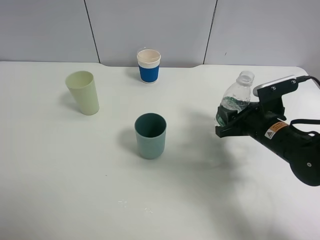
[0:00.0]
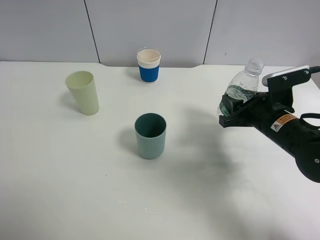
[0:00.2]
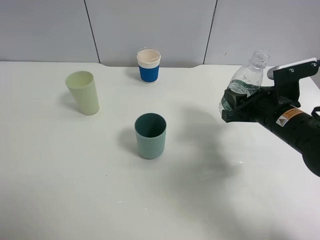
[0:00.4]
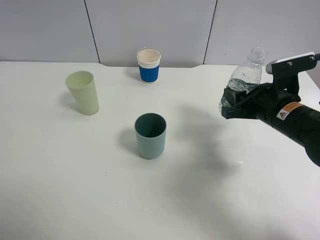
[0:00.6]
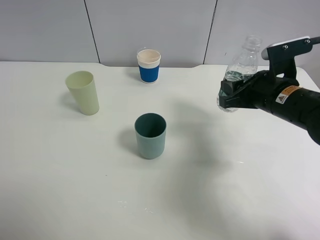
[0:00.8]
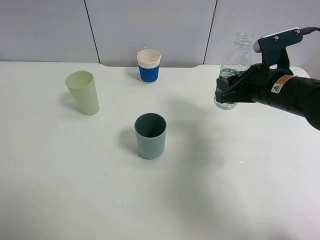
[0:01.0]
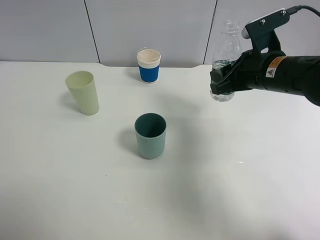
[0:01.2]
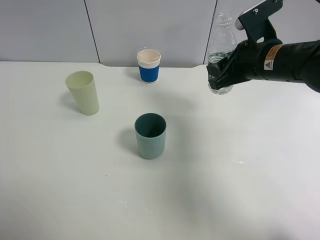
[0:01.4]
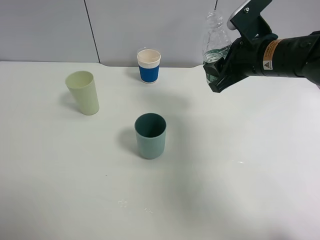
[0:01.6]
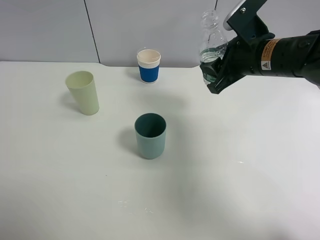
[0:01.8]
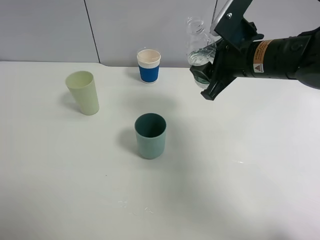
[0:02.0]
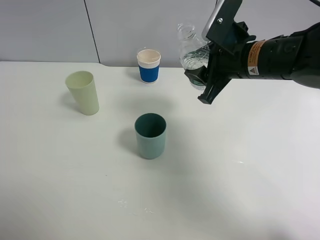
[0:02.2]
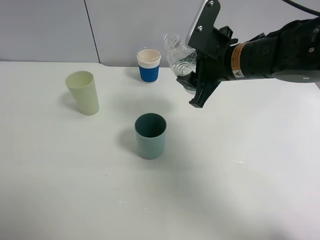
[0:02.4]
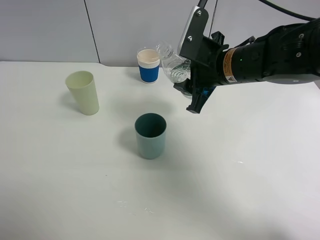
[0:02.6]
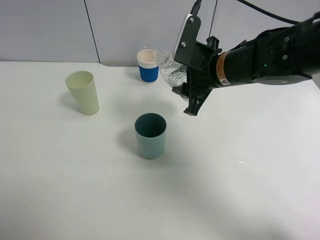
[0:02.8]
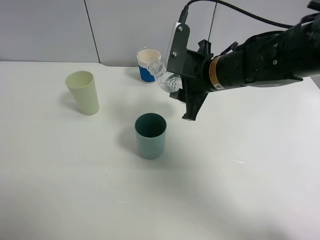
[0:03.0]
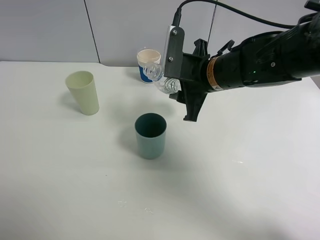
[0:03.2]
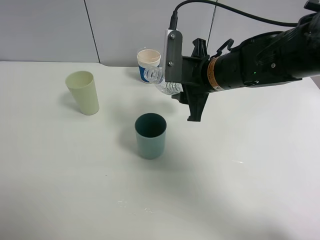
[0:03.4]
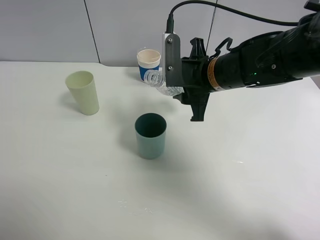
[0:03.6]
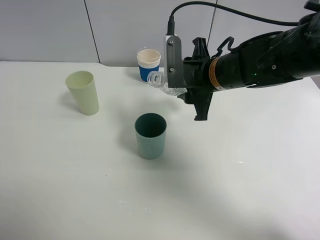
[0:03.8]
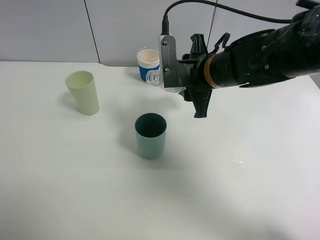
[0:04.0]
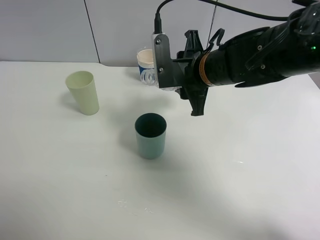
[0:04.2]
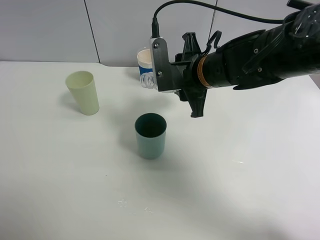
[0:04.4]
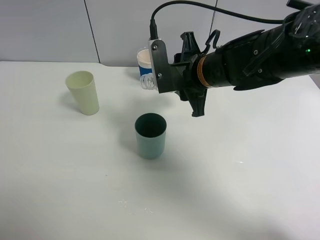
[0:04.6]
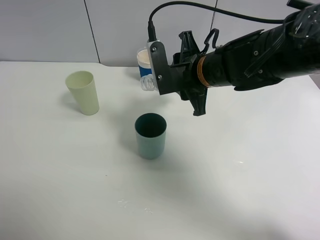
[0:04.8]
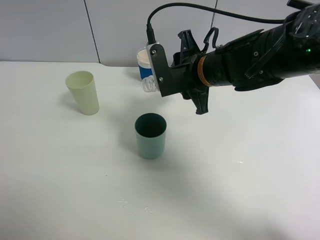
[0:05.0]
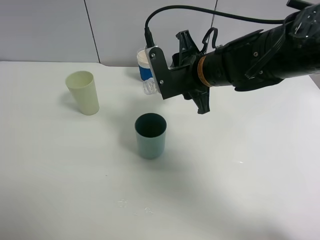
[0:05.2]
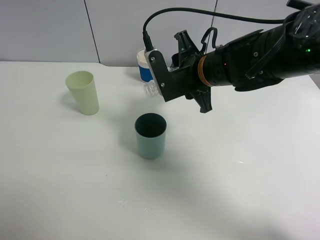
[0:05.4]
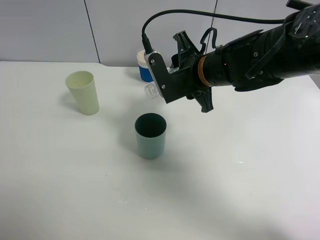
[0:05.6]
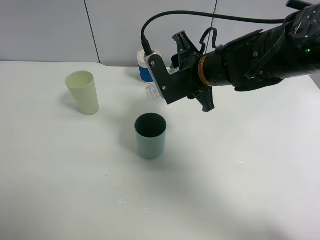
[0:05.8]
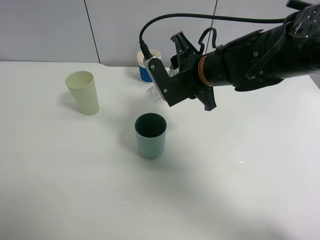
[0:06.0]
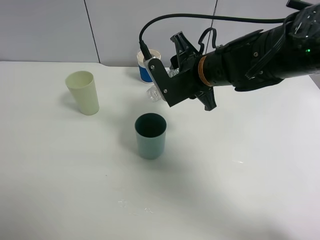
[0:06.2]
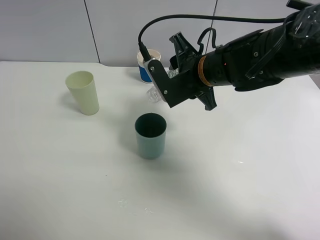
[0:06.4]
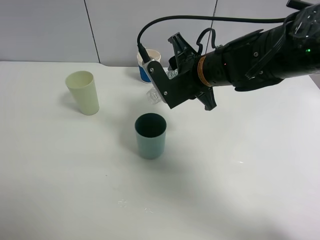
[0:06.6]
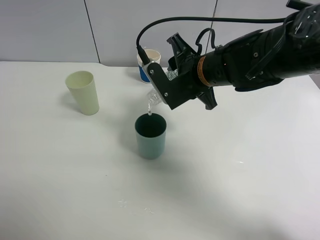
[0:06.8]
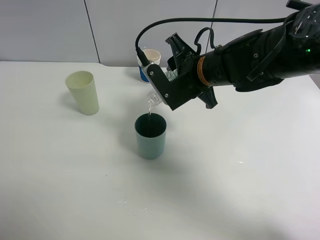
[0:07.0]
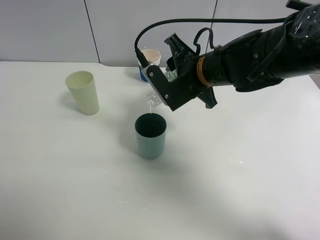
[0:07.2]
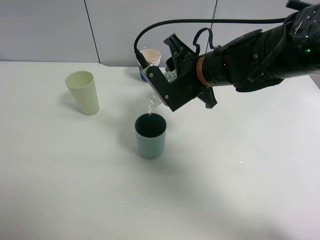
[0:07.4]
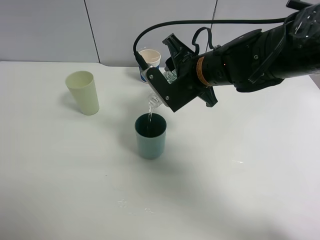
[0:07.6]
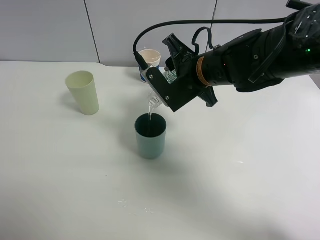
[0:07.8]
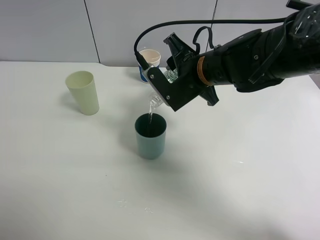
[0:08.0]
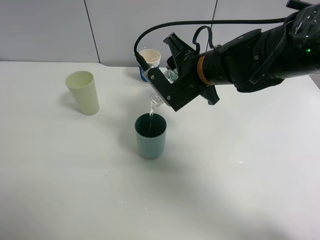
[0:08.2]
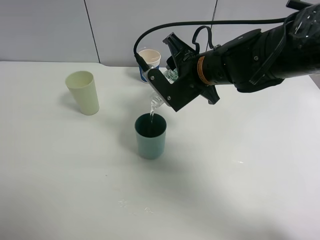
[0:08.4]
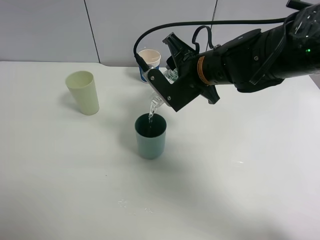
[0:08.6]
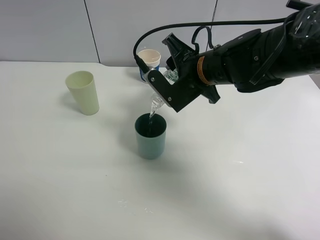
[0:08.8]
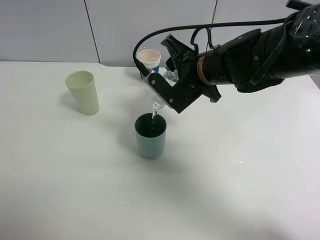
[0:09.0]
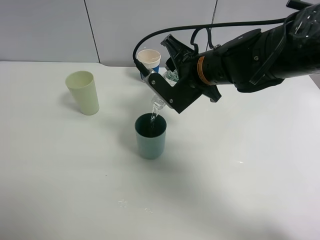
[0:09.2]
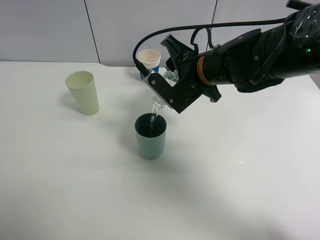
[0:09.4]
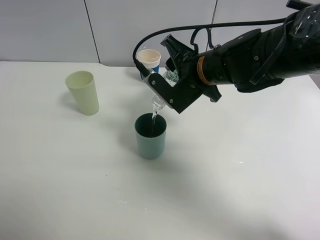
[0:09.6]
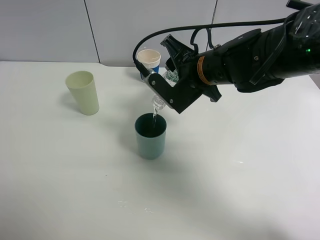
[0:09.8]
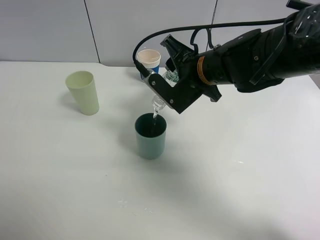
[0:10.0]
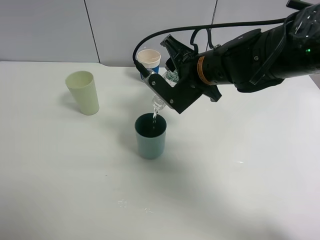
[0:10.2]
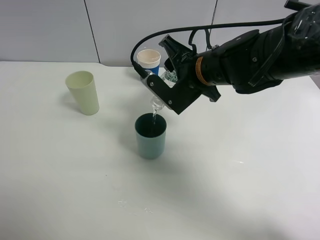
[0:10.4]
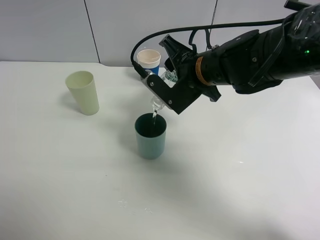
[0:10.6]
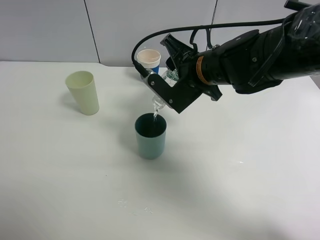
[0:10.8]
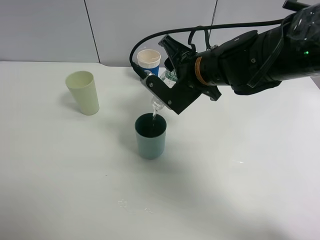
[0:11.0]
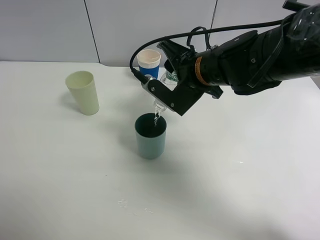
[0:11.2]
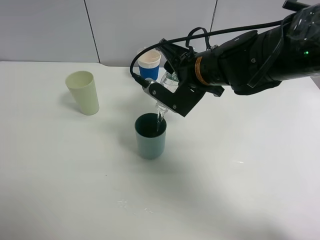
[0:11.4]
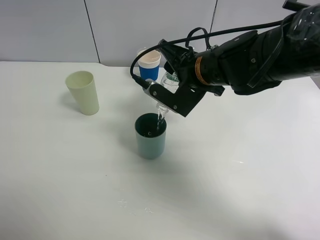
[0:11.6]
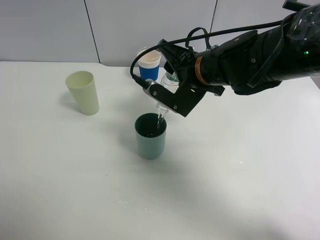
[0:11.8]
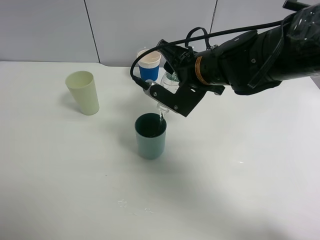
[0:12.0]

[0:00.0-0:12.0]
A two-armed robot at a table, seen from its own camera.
Task of the whole recording: use a clamp to hold the bottle of the drink, pour the beverage into a random cup, then clamp the cup containing the drink and pour the drink into another random cup.
0:00.0 to 0:01.6: The right gripper heads upward and forward, covering approximately 15 cm.
0:01.6 to 0:03.0: The right gripper is displaced to the left by some 10 cm.
0:06.0 to 0:09.0: The grippers move only a little.
0:09.0 to 0:10.4: Neither gripper changes place.
0:10.4 to 0:12.0: The grippers make only small movements.

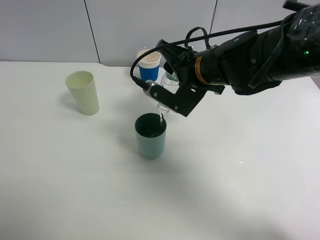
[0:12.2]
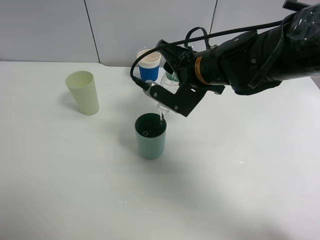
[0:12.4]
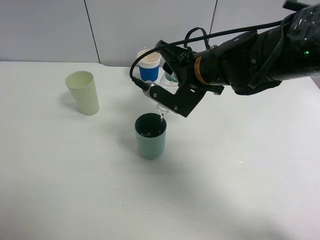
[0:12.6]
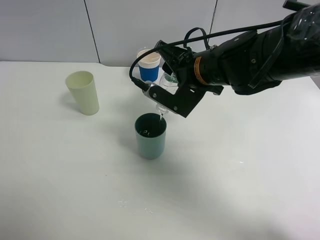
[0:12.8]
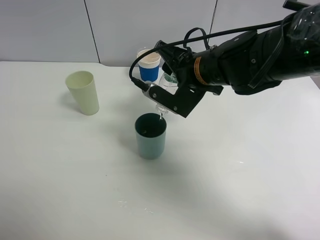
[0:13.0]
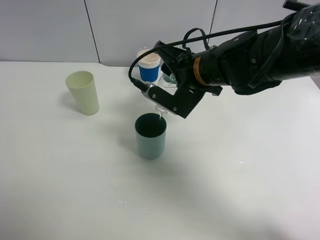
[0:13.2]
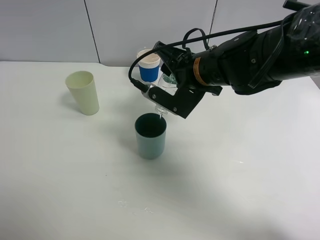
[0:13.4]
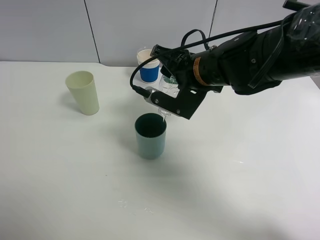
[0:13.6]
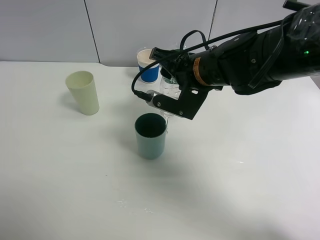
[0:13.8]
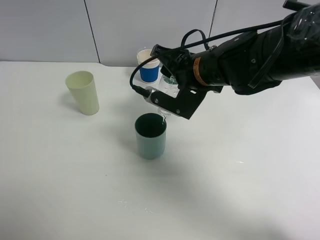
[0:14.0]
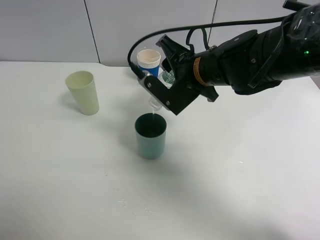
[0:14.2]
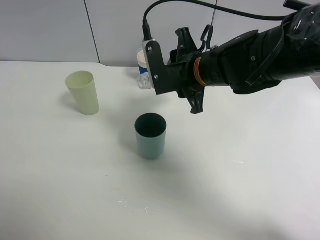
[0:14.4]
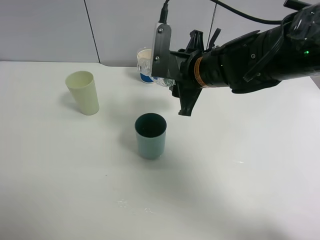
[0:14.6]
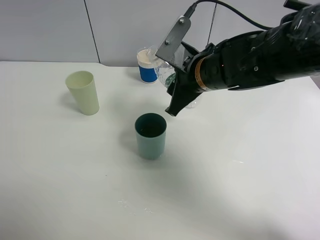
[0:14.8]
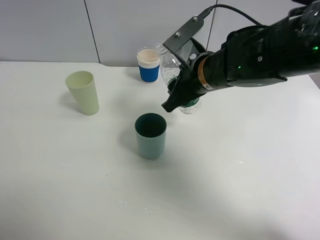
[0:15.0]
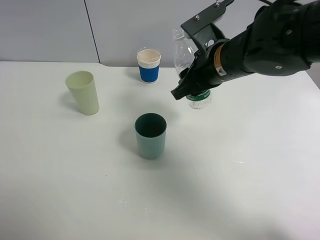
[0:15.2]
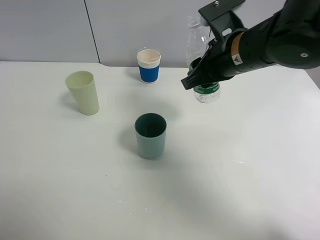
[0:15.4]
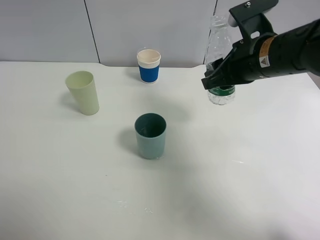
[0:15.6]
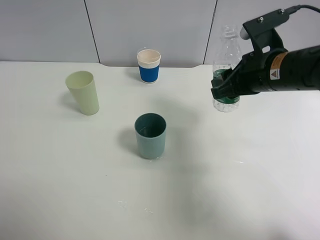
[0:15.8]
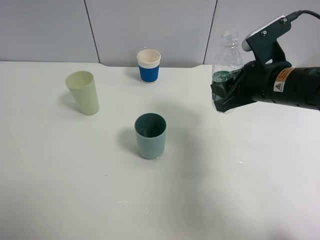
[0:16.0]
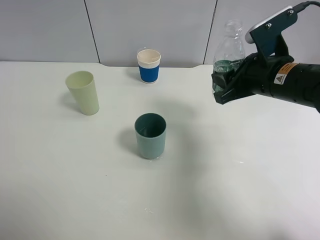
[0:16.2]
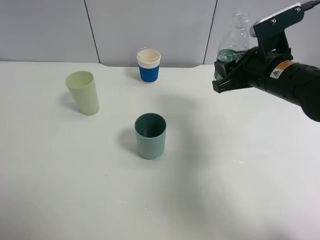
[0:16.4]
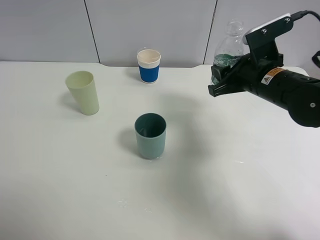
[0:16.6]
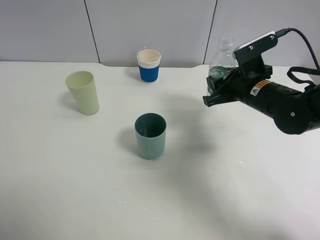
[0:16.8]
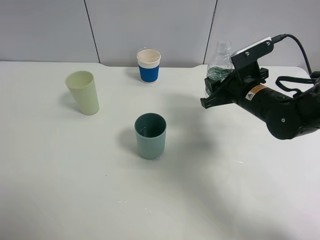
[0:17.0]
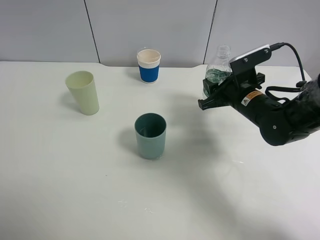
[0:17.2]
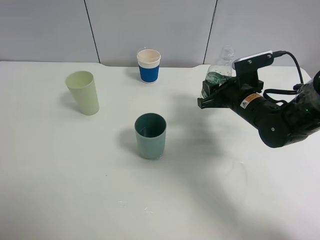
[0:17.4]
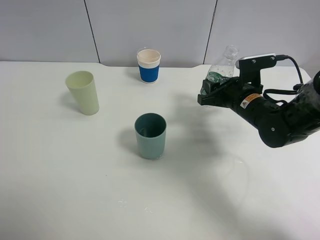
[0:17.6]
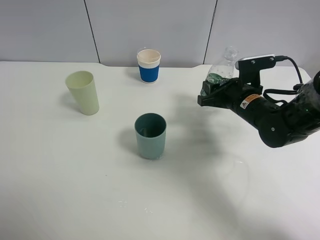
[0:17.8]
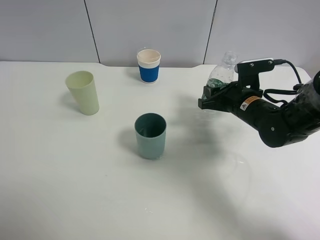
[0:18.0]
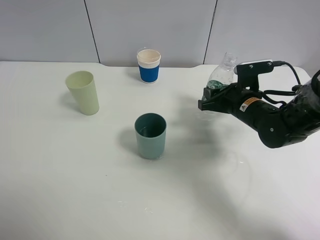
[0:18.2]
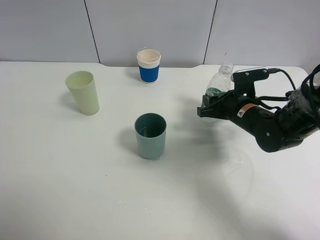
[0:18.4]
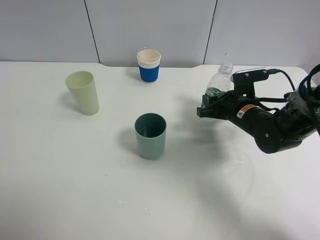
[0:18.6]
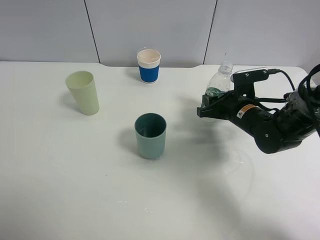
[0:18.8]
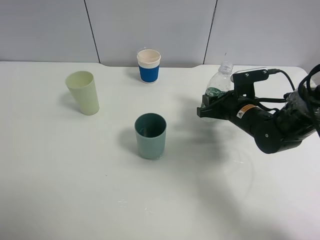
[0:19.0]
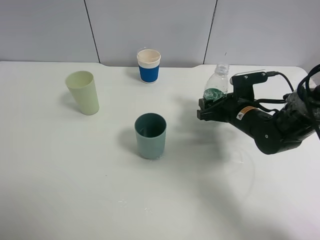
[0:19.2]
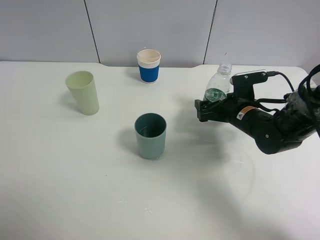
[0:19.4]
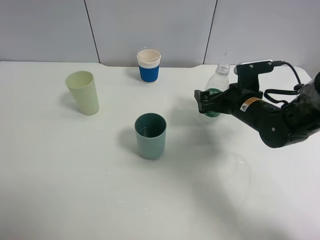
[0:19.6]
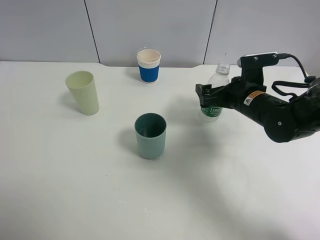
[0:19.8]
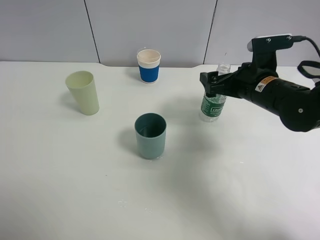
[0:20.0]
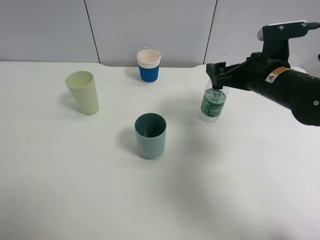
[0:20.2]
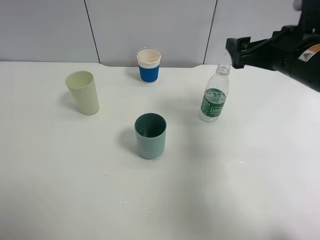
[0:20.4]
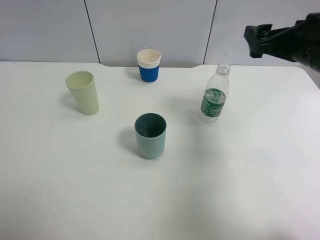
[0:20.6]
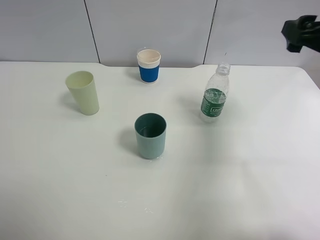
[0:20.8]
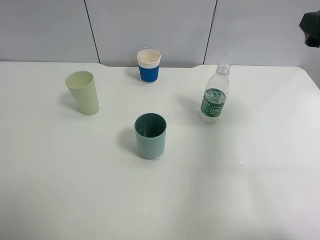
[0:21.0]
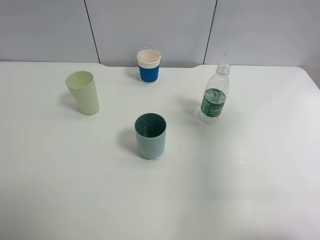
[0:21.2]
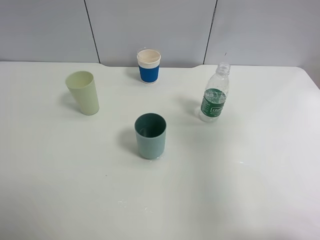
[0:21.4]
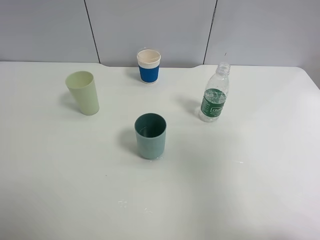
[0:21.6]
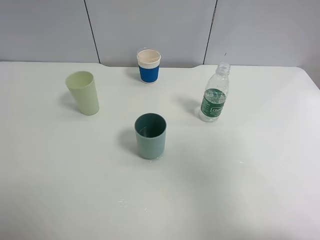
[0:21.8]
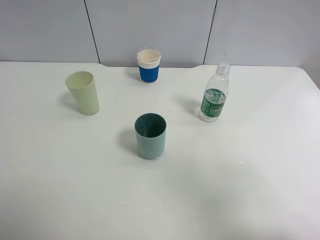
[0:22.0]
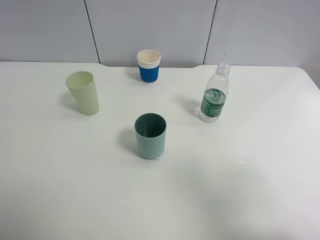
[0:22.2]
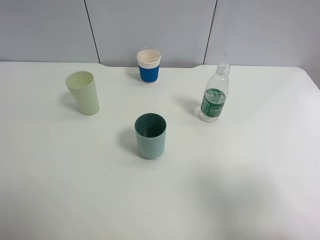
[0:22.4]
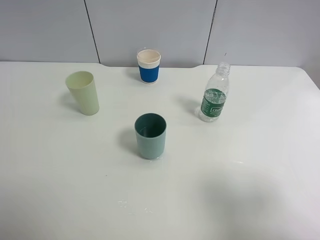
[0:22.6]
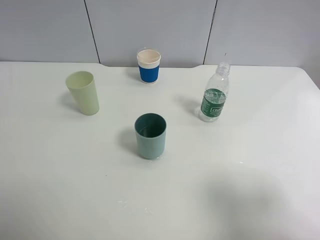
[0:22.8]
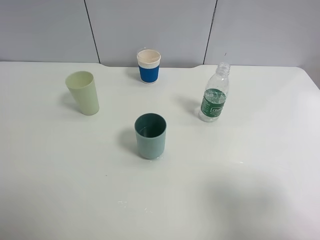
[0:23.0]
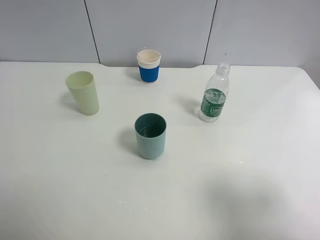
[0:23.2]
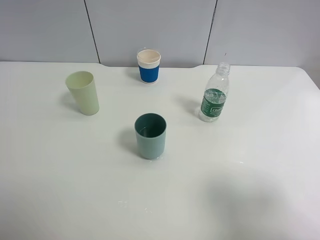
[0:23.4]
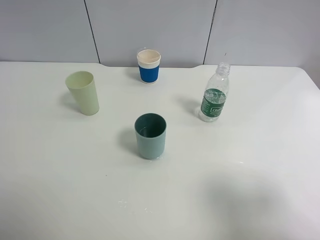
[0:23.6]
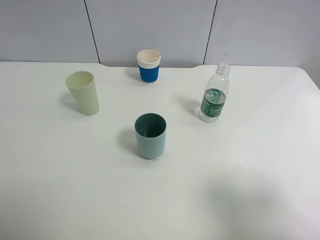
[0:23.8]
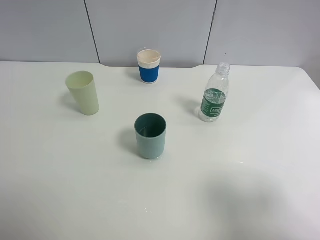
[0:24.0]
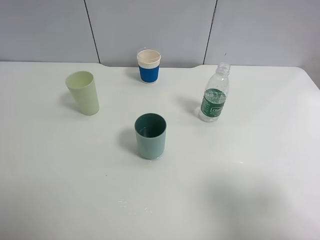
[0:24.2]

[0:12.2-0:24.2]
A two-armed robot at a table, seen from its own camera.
Task of the whole recording: use a clamp to hold the bottle of the drink, pour the beverage into a random cup, then clamp the cup containing the drink and pour the drink into another random cup.
Step, 0:12.2 to 0:14.6: Pour water into the blue plastic cup with right gripper.
Step, 0:14.8 to 0:20.0: Place the water bottle on the table with right gripper.
0:12.2 to 0:13.8: The grippers make only small movements.
0:15.2 to 0:16.6: The right gripper heads to the right, covering approximately 10 cm.
0:16.6 to 0:18.2: The right gripper moves downward, about 10 cm.
0:18.2 to 0:19.8: The right gripper opens up.
0:19.8 to 0:21.2: The right gripper heads upward, backward and to the right, covering approximately 25 cm.
0:21.2 to 0:22.6: The right gripper heads backward, covering approximately 15 cm.
0:22.6 to 0:24.2: Neither gripper changes place.
